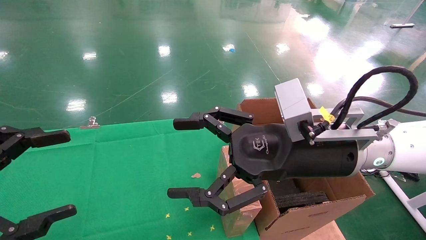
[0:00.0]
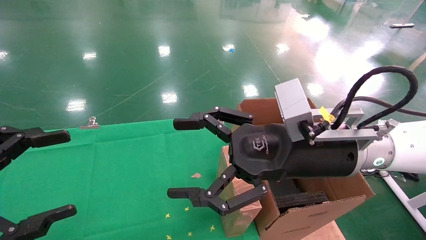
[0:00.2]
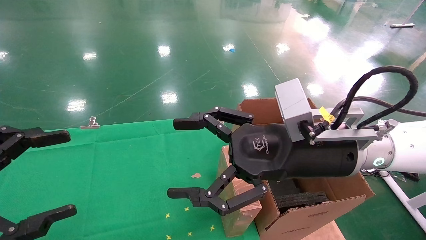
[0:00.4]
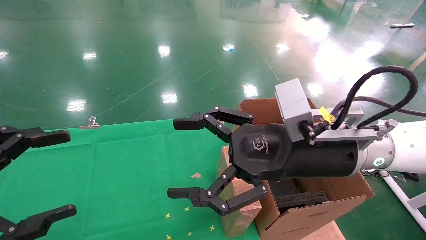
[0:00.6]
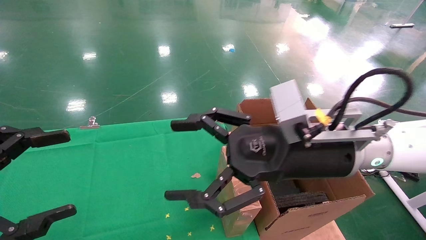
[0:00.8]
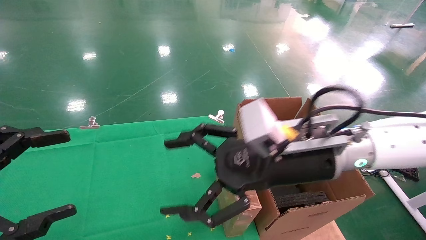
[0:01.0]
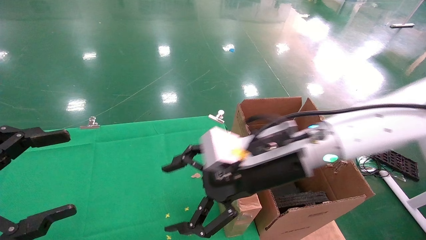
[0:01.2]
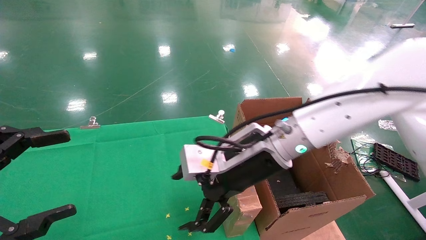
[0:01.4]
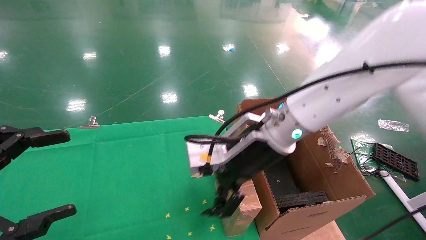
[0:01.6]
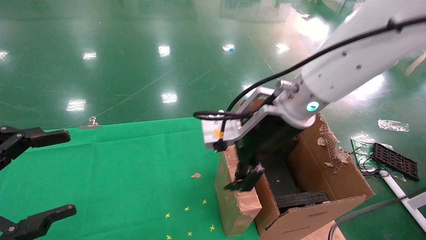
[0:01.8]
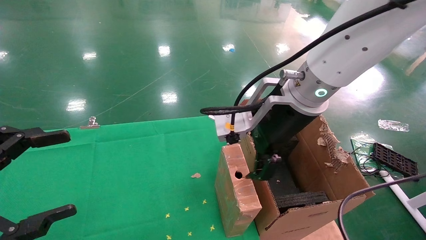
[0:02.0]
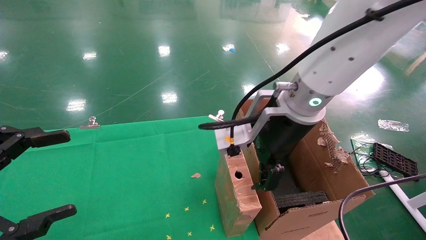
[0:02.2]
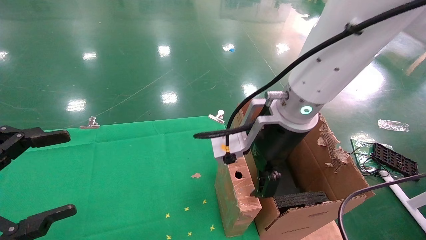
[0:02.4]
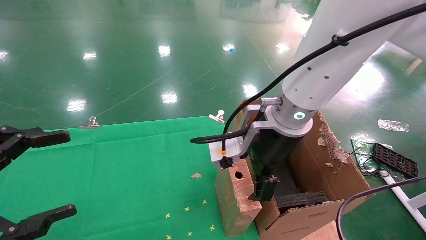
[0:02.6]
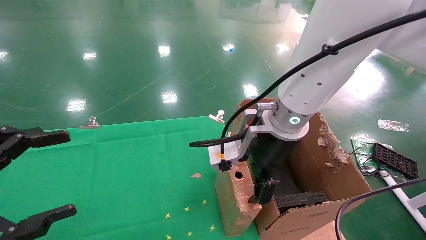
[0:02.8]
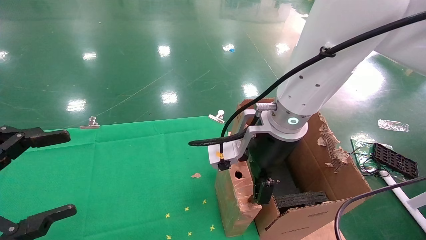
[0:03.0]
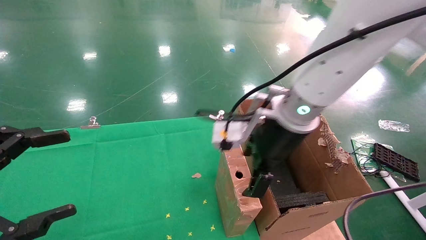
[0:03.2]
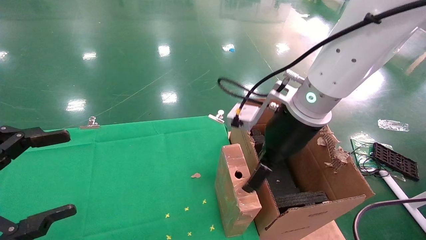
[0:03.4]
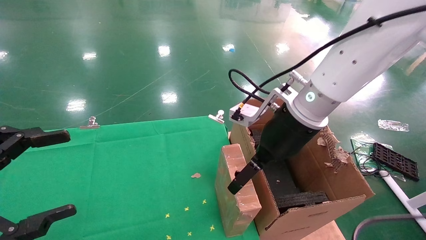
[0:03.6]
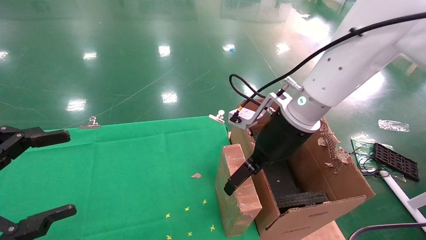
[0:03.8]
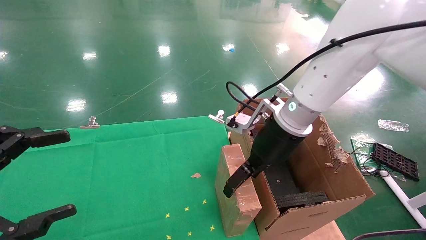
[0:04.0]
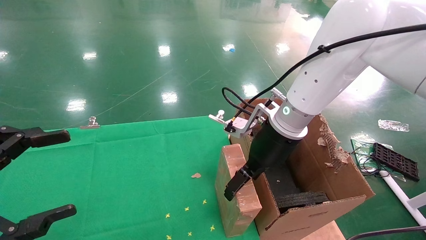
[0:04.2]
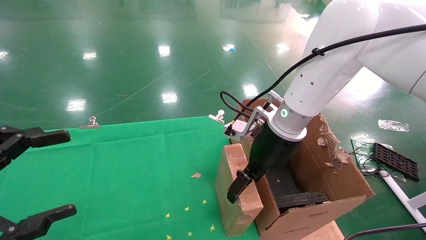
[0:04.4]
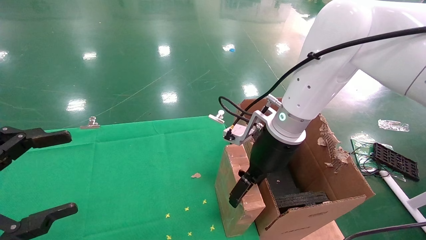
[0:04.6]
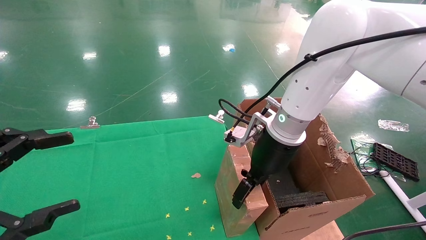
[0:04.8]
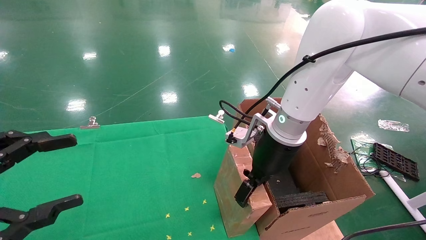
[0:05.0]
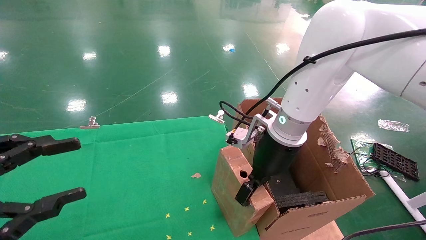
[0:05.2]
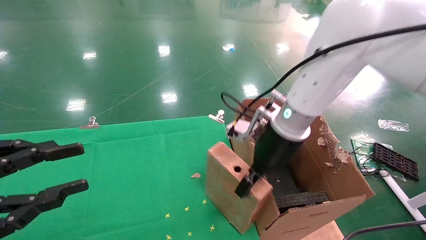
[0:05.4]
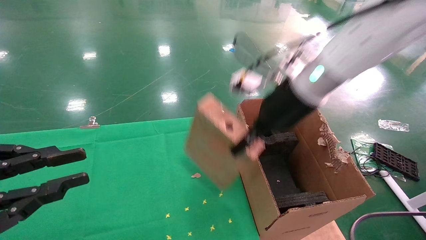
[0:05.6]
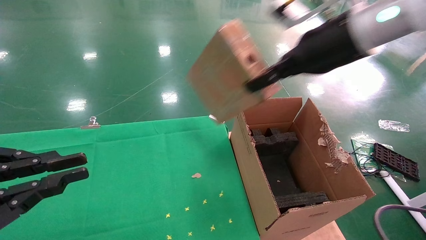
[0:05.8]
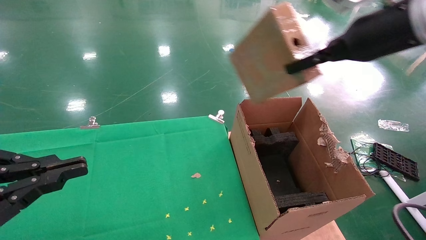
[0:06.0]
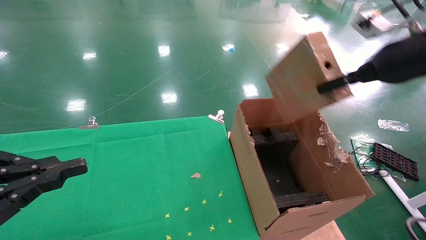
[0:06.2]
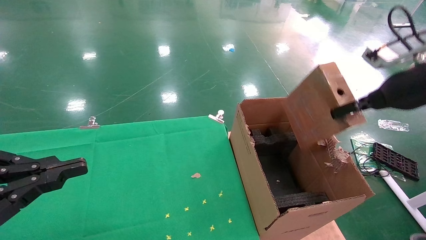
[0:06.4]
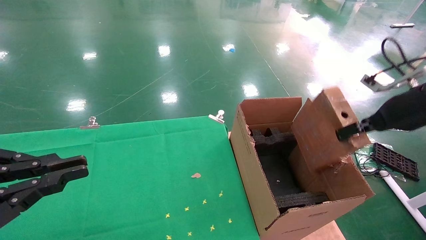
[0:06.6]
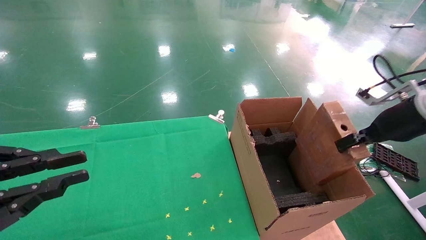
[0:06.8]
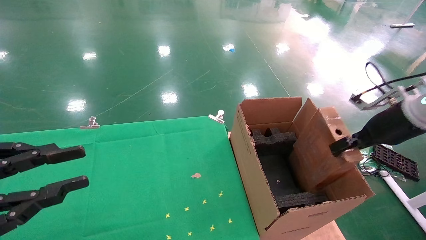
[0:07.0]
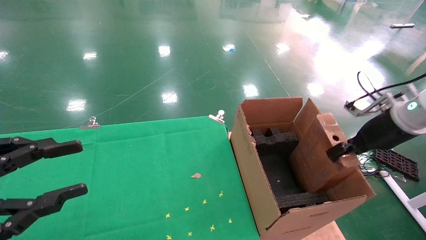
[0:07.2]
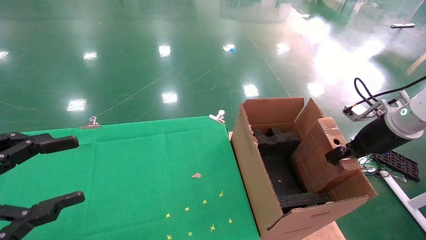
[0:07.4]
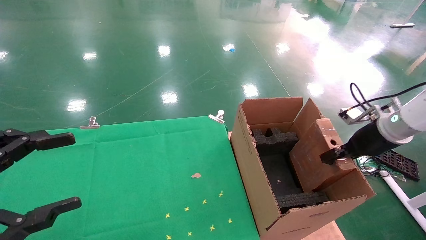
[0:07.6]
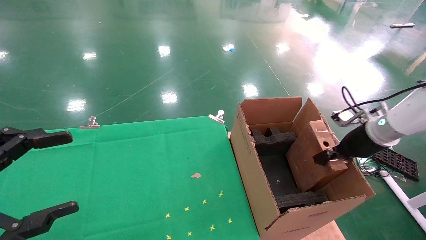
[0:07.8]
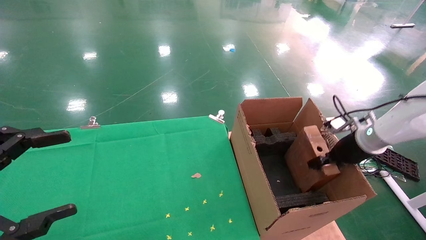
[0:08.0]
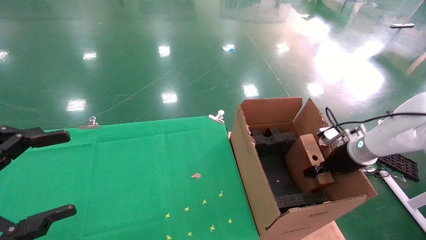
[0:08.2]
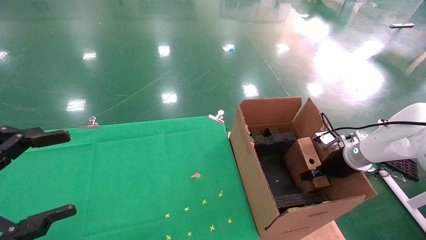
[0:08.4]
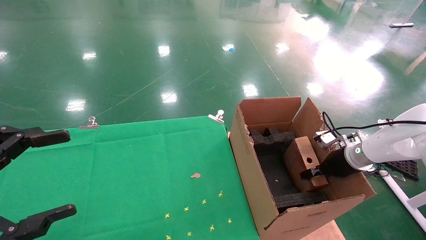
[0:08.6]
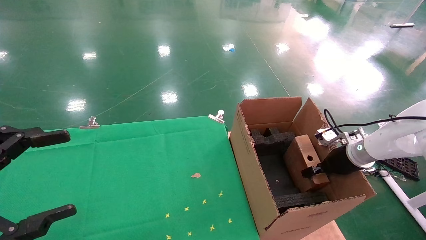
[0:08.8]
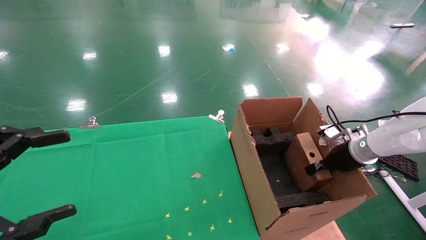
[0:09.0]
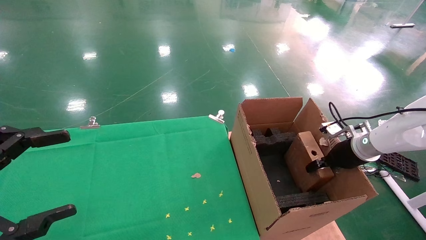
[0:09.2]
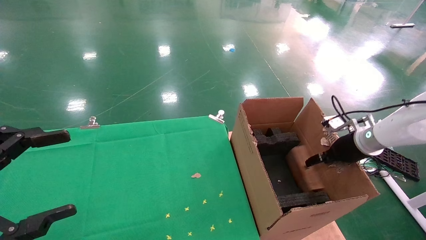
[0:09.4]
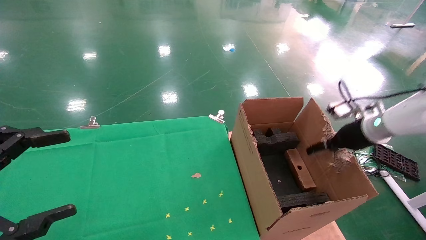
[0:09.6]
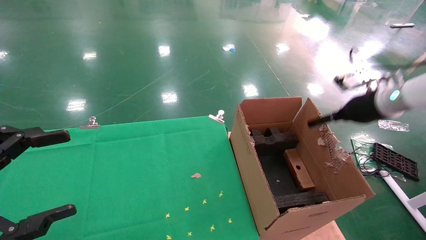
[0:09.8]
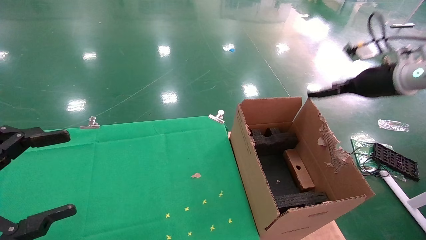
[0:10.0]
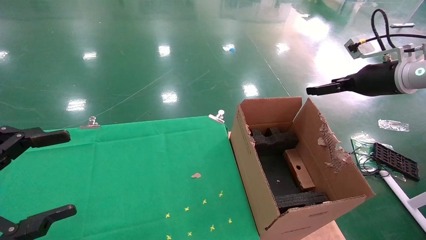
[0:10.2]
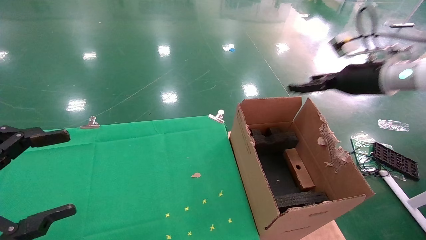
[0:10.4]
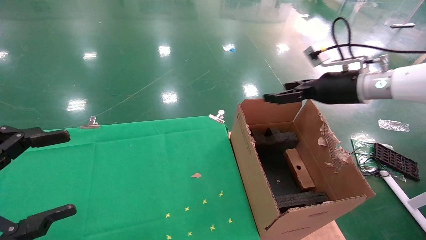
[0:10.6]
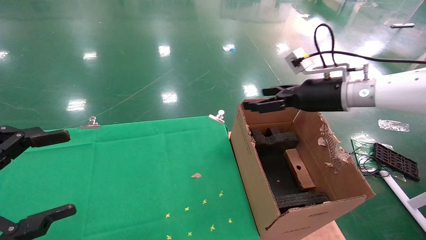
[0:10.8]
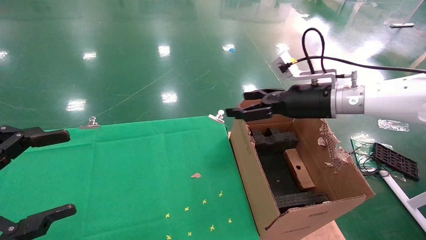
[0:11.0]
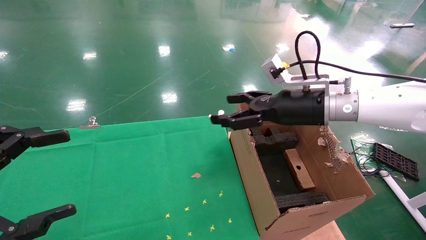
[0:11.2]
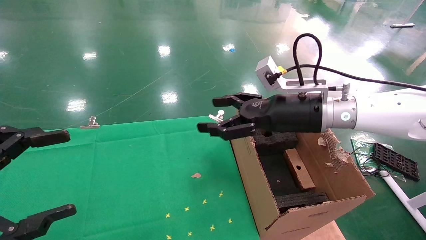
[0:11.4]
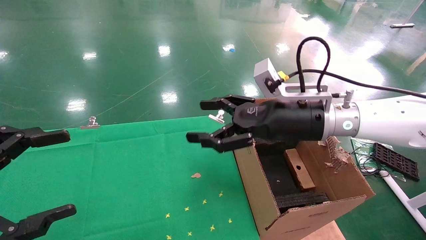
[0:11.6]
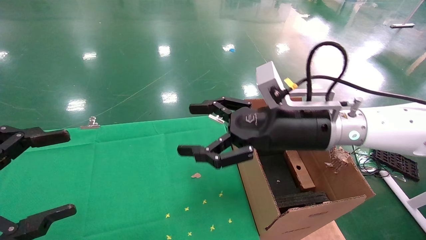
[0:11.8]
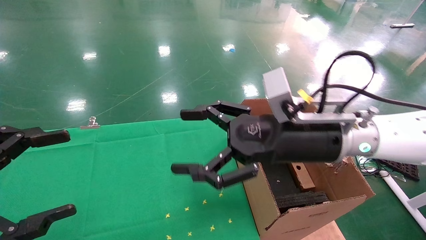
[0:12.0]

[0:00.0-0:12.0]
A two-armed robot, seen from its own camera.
Task of the whole recording: using a robotic arm to pick up a cardboard box and palace it the carton.
Step, 0:01.0 to 0:05.4: Pick up the mouse and the power cord paper box.
Step, 0:05.6 to 0:09.8: Place the mouse and the power cord paper box into the container.
0:00.0 to 0:01.6: The right gripper travels forward and to the left by roughly 10 cm.
0:03.0 to 0:04.4: The right gripper shifts by about 5 cm.
0:04.4 to 0:06.0: The left gripper closes up. Meanwhile the right gripper goes approximately 20 cm upward and to the right, and closes.
0:06.0 to 0:07.6: The right gripper goes about 25 cm downward and to the right; the left gripper opens its fingers.
0:07.6 to 0:09.0: The right gripper heads downward, covering roughly 10 cm.
0:09.0 to 0:10.4: The right gripper heads upward, covering about 15 cm, and opens up.
0:10.4 to 0:12.0: The right gripper travels to the left and backward by about 25 cm.

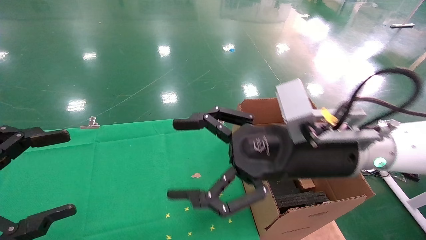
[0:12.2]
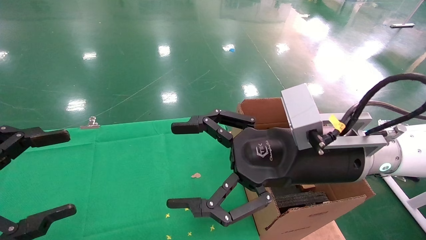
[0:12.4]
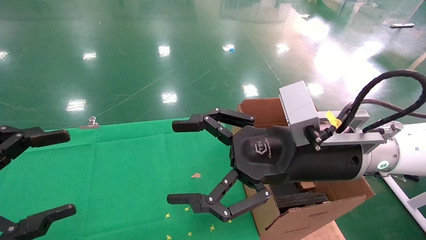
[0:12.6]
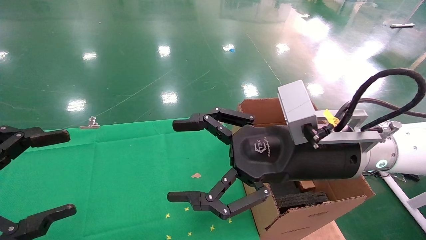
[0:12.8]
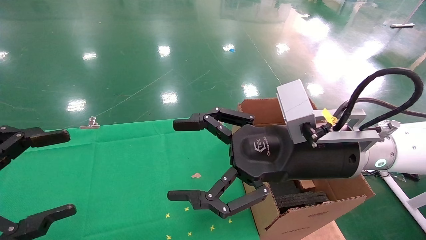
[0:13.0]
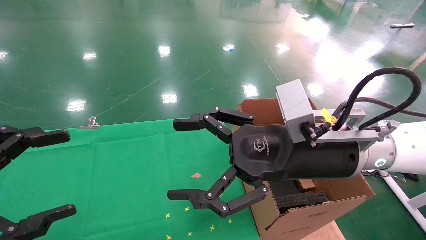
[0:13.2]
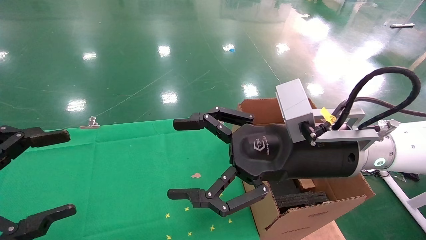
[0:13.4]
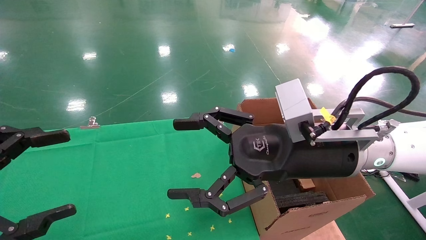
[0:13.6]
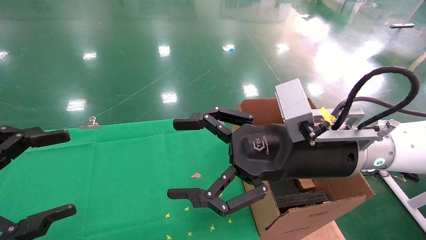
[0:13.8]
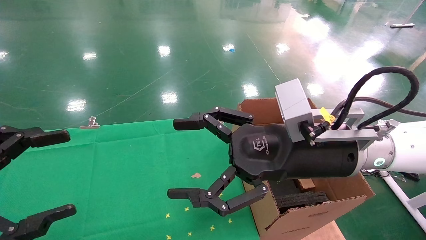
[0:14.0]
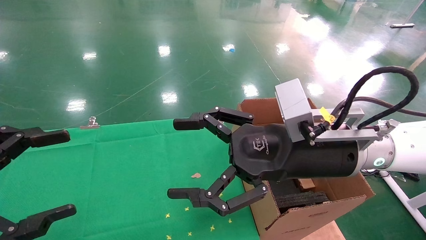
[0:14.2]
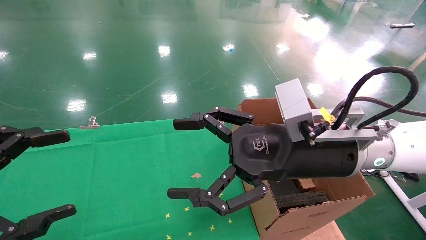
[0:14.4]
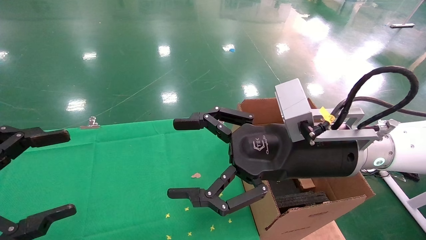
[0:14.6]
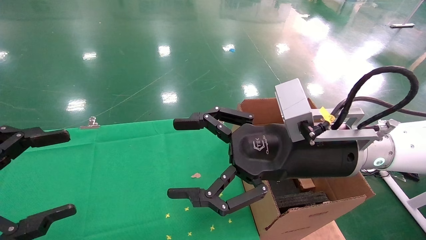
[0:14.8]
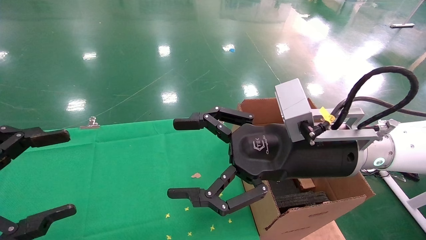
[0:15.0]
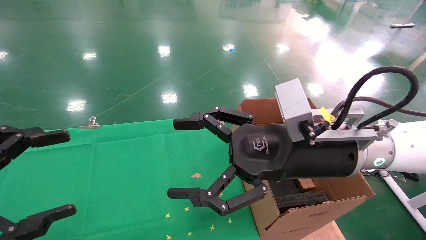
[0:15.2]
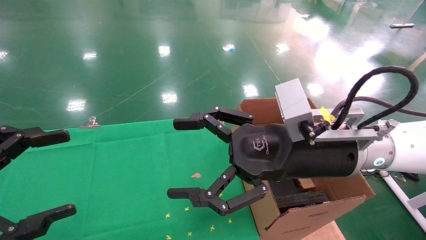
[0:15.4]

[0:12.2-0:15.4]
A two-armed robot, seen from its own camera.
Task of the whole recording: using a robotic arm to pick up a cardboard box and palace it the carton.
0:12.2 to 0:15.4: Both grippers stay about where they are.
